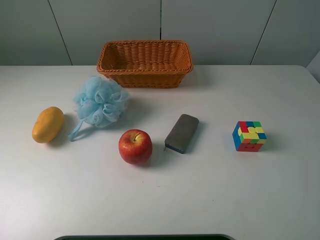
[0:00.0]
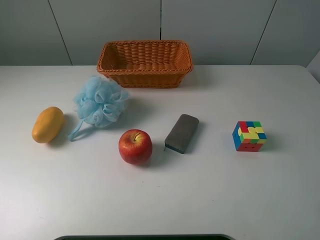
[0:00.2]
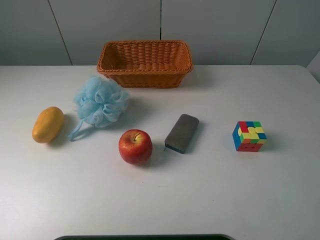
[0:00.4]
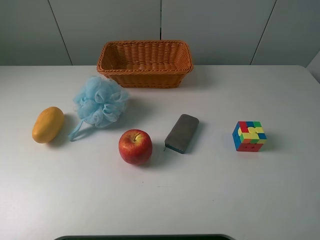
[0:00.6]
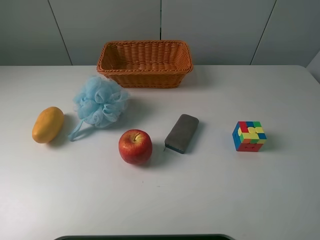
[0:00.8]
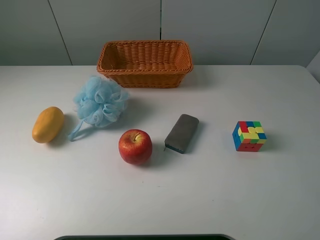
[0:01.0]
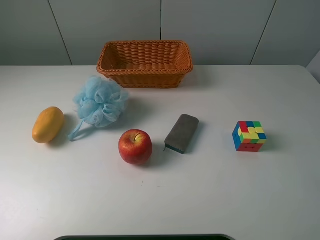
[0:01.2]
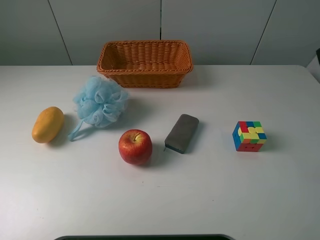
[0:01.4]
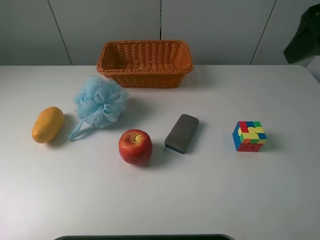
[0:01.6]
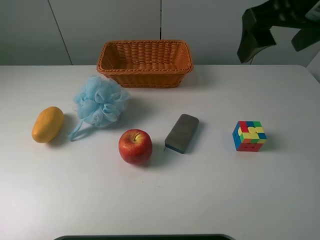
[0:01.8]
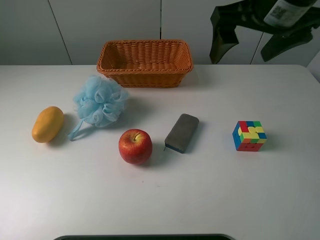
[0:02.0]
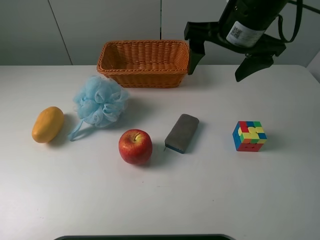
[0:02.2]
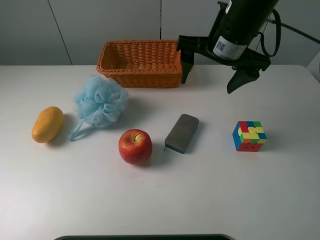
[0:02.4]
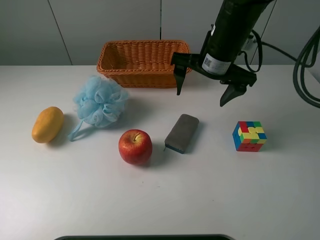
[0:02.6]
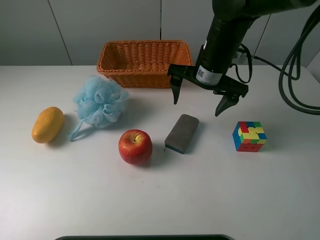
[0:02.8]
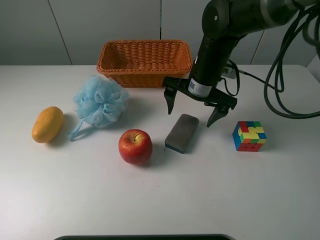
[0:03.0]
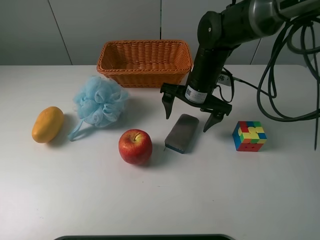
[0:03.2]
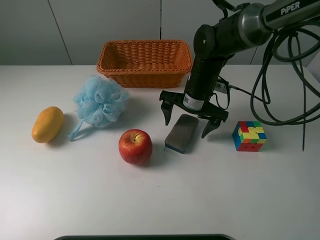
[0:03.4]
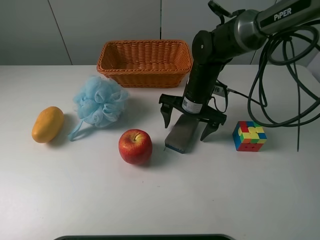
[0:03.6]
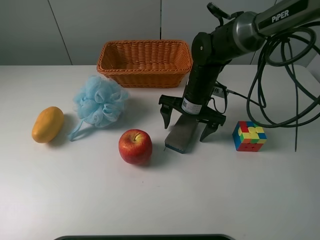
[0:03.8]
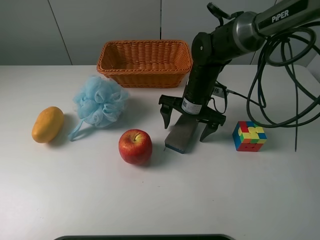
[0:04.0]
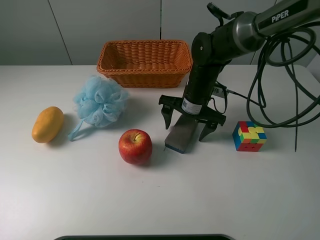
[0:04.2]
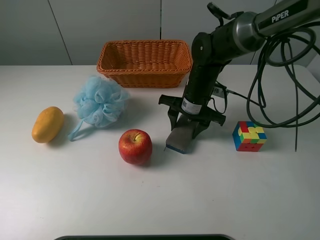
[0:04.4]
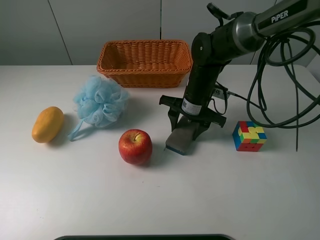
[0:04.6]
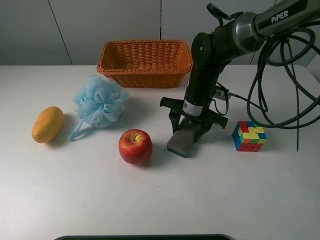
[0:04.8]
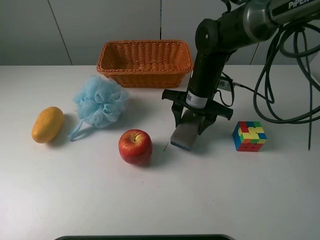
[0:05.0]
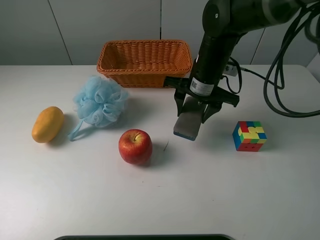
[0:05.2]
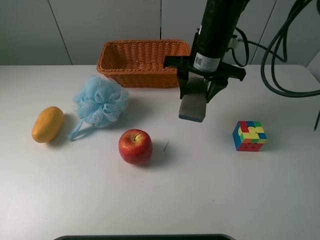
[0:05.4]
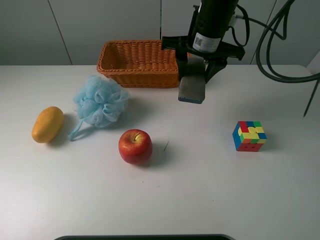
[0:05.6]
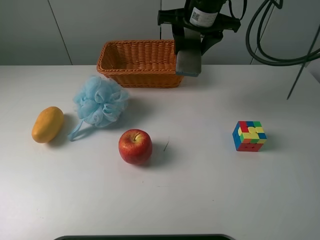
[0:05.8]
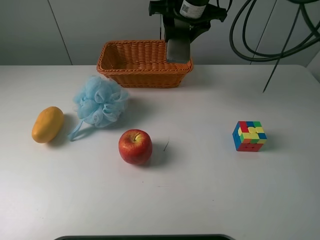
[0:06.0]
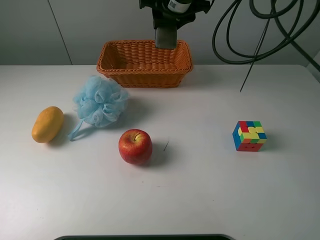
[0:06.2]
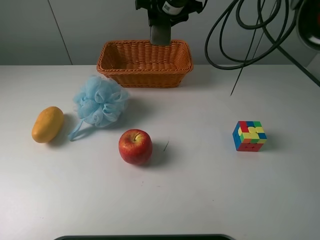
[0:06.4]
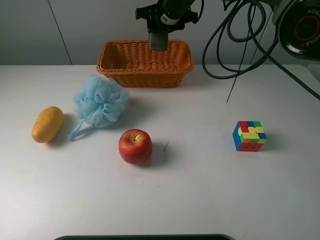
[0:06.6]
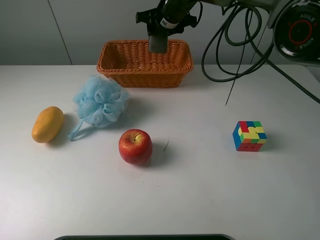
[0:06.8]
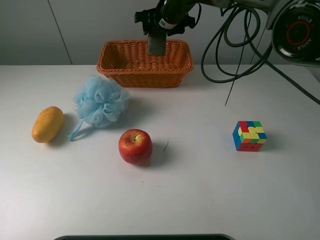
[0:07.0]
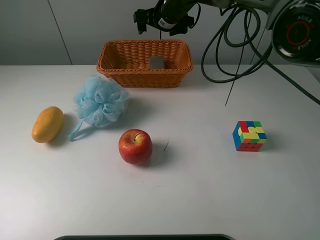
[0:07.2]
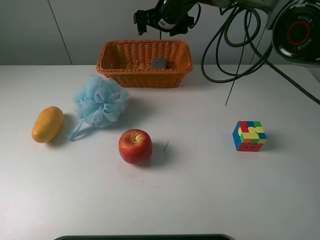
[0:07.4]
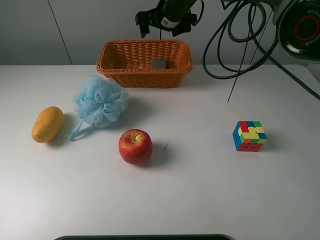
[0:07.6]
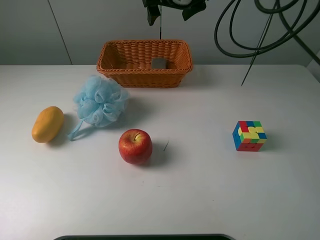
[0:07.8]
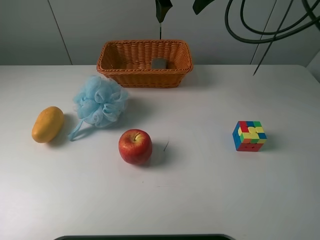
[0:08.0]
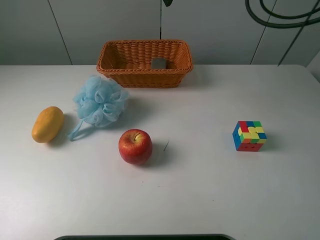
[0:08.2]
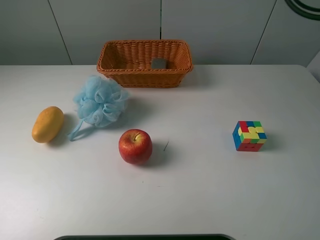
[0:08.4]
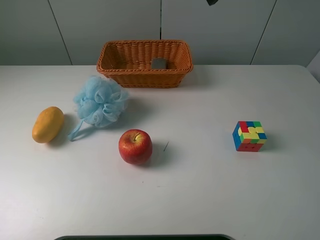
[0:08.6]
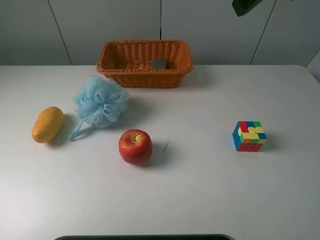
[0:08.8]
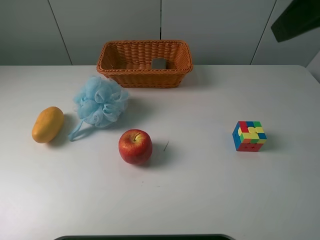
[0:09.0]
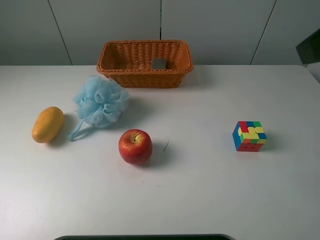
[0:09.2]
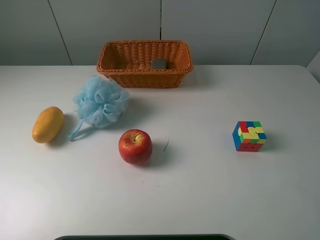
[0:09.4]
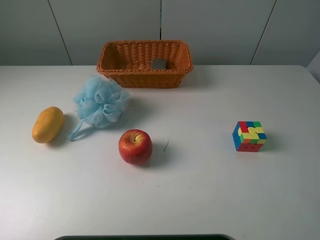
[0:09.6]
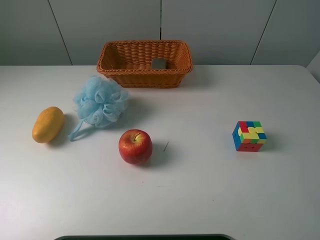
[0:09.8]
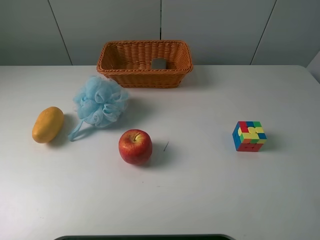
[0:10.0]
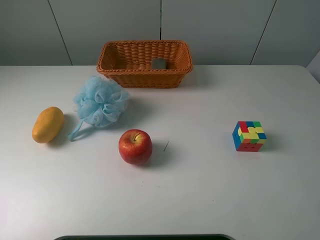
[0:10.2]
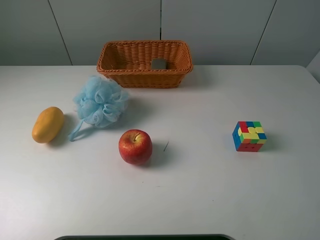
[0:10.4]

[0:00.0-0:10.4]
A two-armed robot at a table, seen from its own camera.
Task of the whole recording: use a picker to grab the item closest to the apple and place it in the basket.
Step, 0:00.0 to 0:04.6: Grasp the chalkboard eraser with the right gripper.
Step, 0:04.8 to 0:07.4: Place the chalkboard eraser into the basket with the right gripper.
0:01.4 to 0:03.0: The right gripper moves downward, forward and to the left, approximately 30 cm.
0:03.0 to 0:04.4: The right gripper shifts approximately 5 cm downward, and closes its fingers.
0:04.4 to 0:06.0: The right gripper travels upward and forward by some 20 cm.
0:06.0 to 0:07.4: The right gripper goes roughly 10 cm forward and downward, and opens.
0:07.4 to 0:09.0: The right gripper heads backward, upward and to the right, covering roughly 40 cm.
0:09.0 to 0:10.4: The right gripper is displaced backward, downward and to the right by approximately 20 cm.
